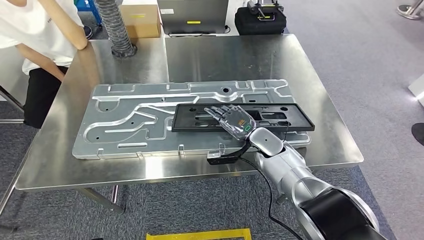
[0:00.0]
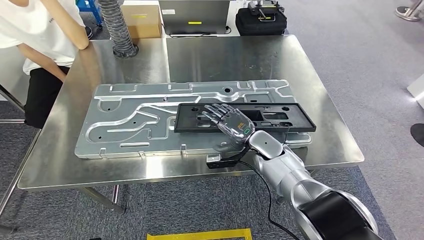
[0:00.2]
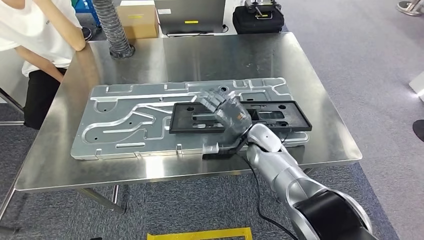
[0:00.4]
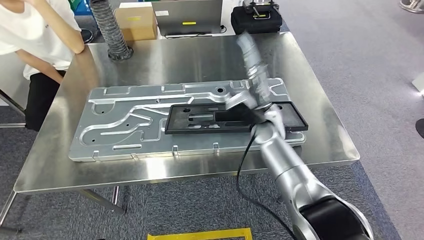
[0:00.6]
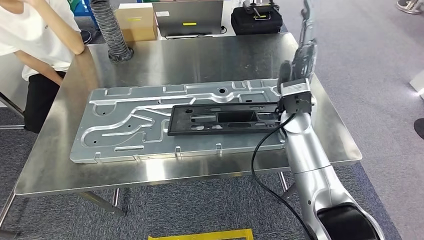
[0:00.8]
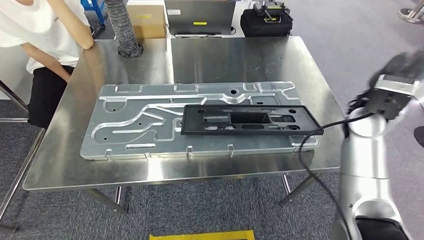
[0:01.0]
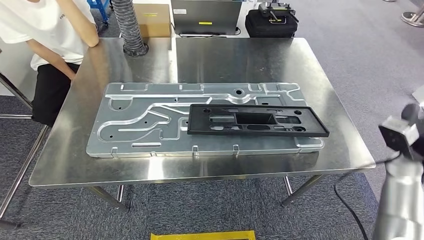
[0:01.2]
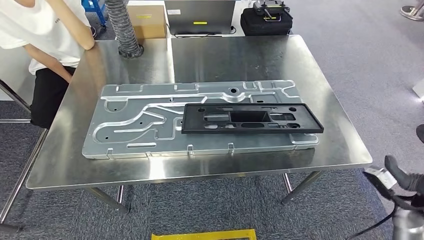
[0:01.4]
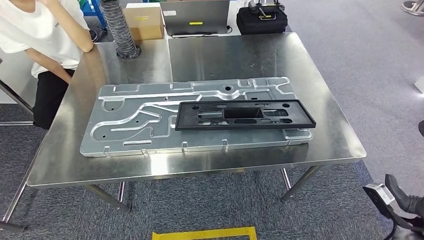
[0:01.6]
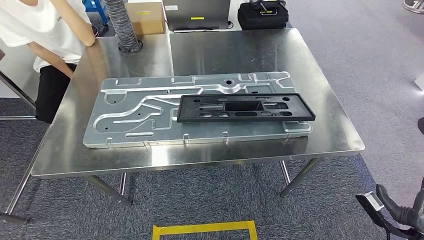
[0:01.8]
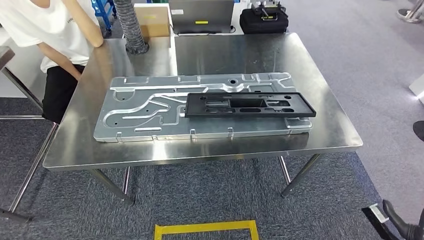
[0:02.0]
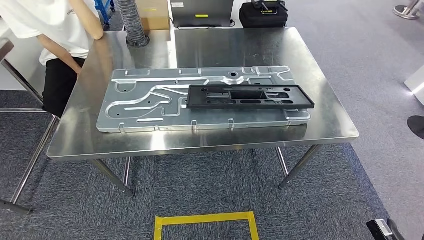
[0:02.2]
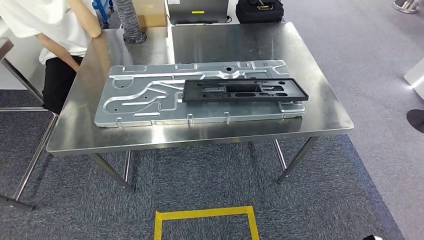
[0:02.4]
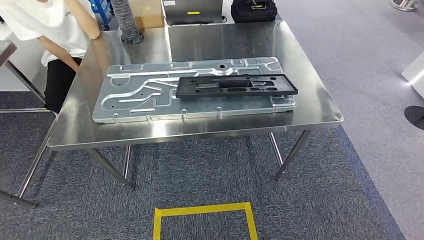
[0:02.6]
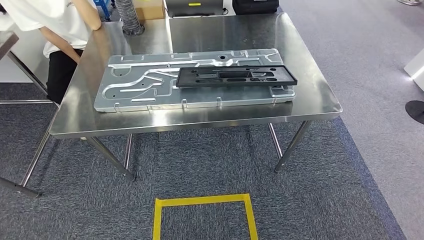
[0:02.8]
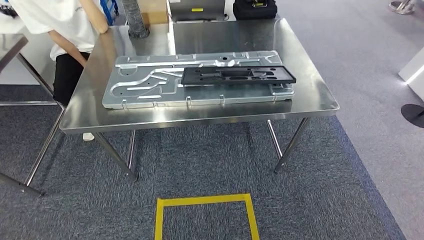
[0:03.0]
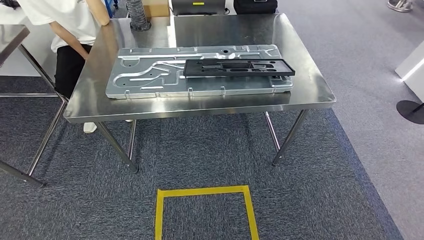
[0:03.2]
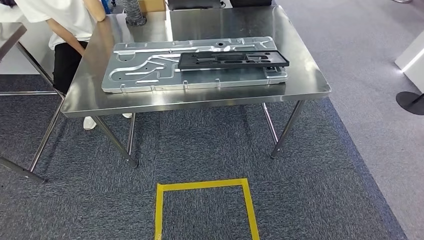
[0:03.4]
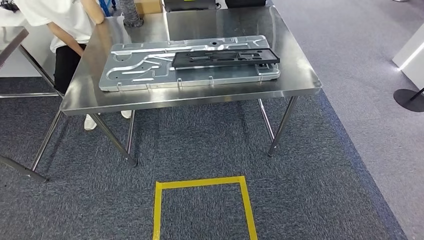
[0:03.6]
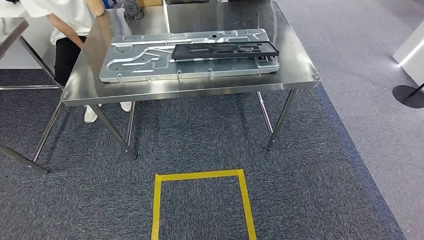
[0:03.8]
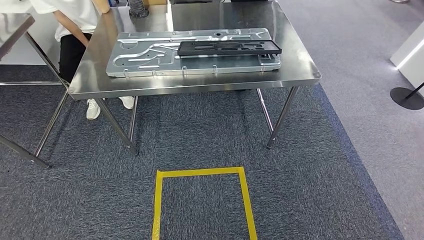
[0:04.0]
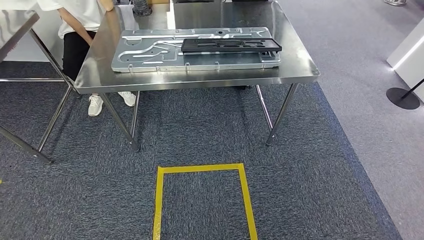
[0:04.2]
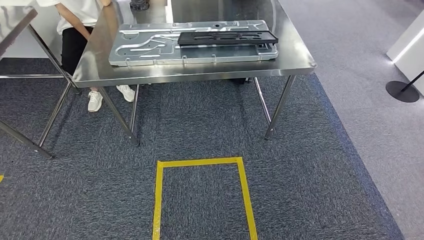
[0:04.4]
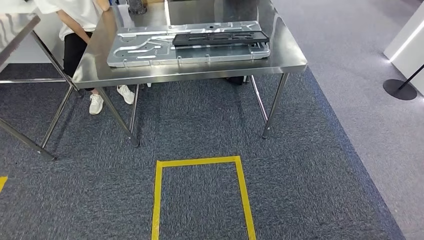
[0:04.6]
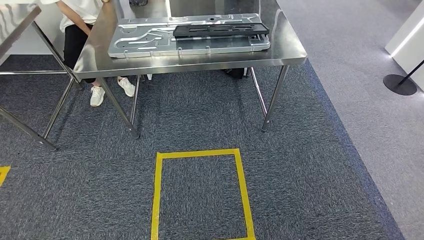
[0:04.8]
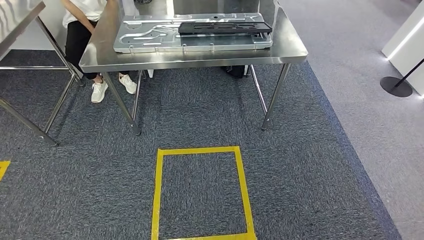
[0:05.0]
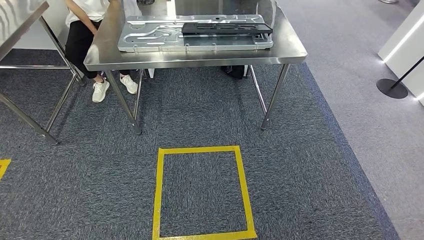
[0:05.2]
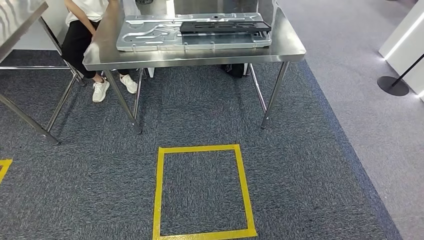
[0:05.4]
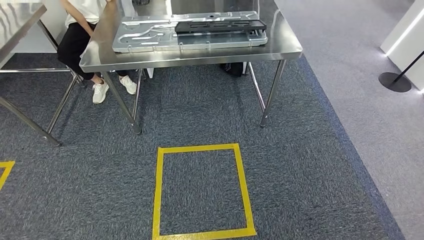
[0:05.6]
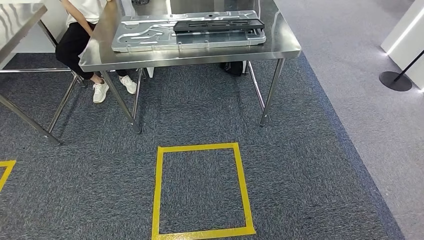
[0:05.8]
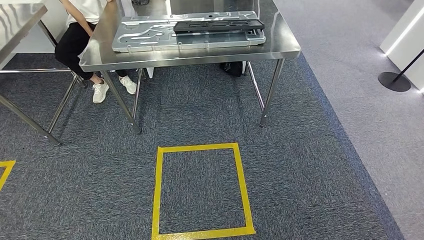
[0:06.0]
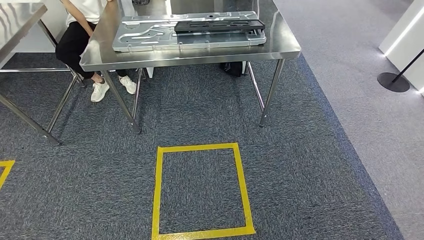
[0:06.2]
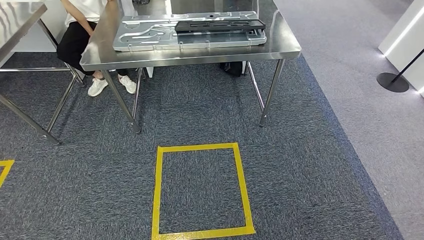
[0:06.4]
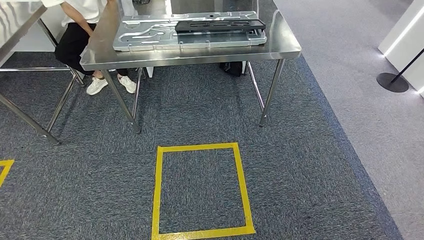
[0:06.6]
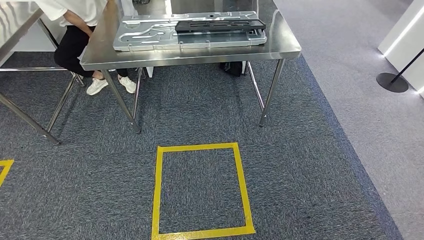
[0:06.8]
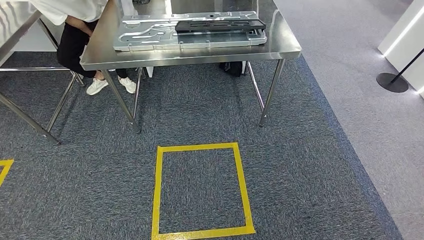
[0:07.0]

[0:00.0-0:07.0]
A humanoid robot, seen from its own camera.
Step, 0:00.0 to 0:01.8: Insert the large material into the corresponding slot on the workbench.
Step, 0:02.2 to 0:07.0: Move to the initial position of the shelf.
0:05.6 to 0:07.0: The hands move only a little.
